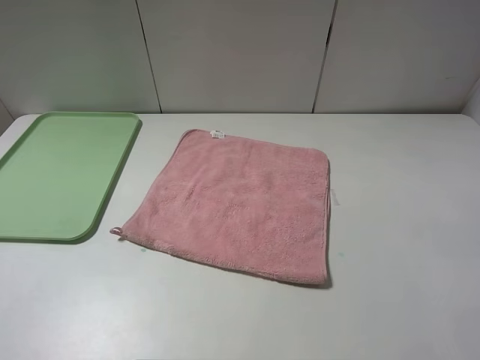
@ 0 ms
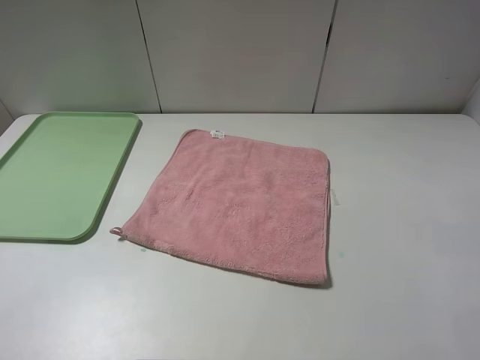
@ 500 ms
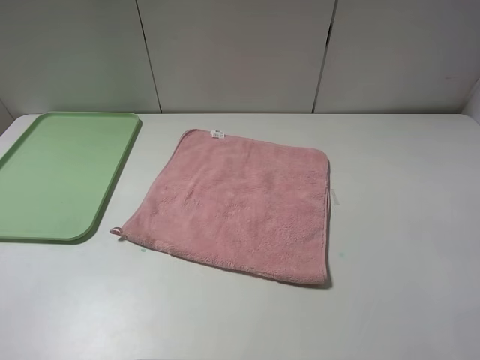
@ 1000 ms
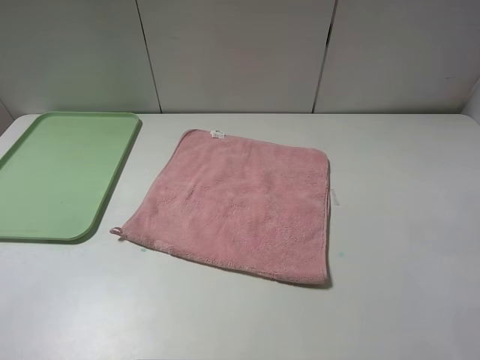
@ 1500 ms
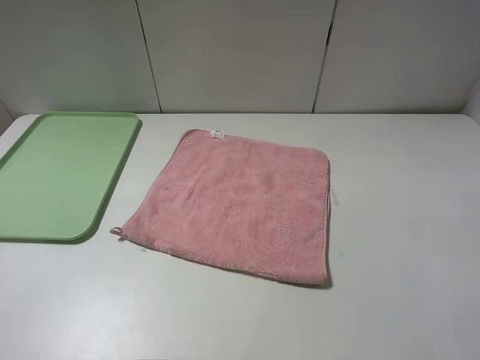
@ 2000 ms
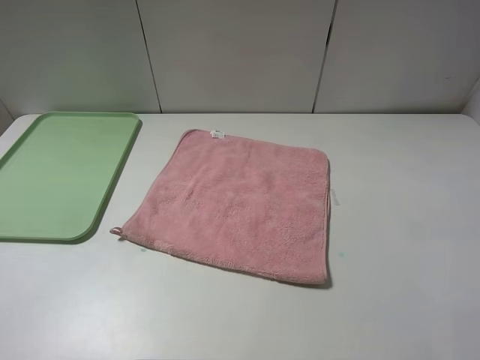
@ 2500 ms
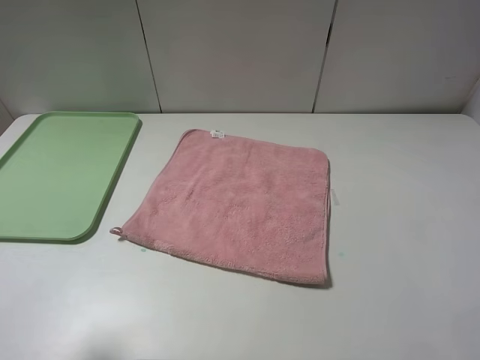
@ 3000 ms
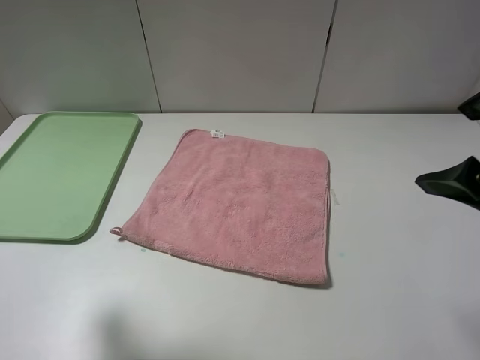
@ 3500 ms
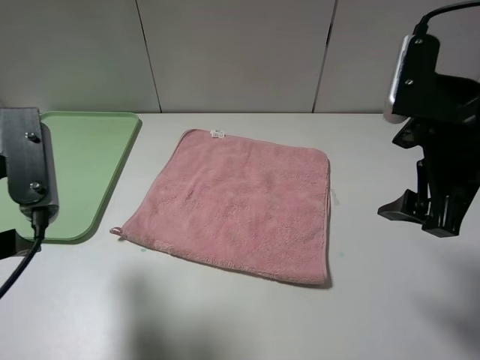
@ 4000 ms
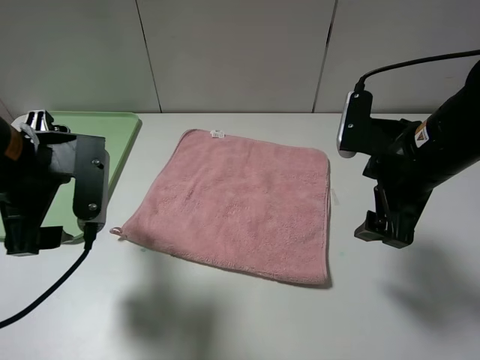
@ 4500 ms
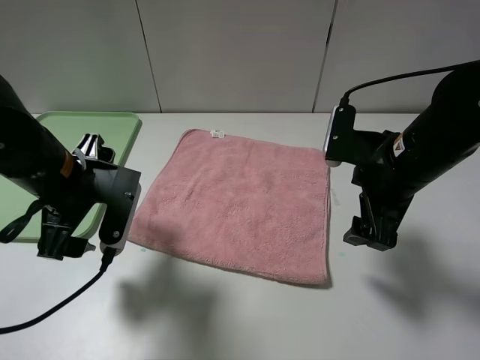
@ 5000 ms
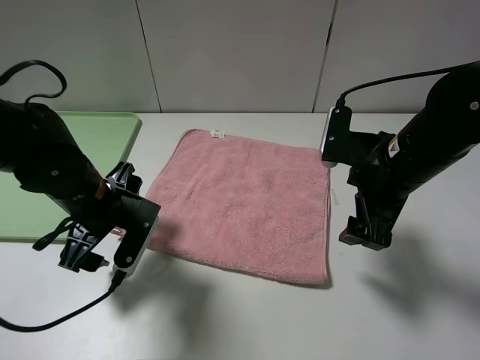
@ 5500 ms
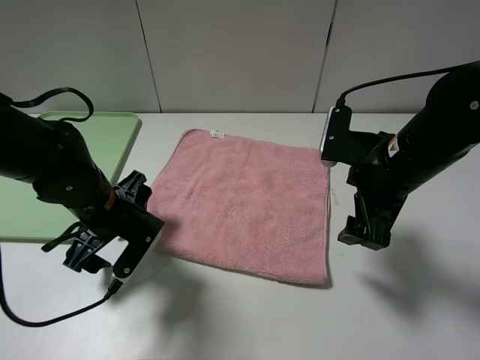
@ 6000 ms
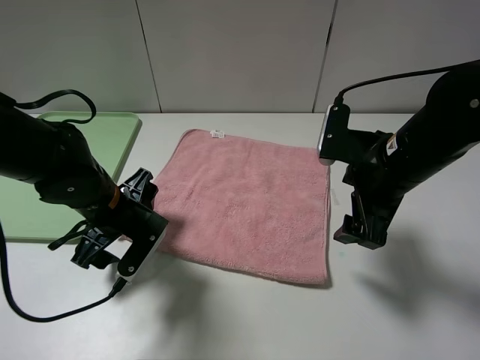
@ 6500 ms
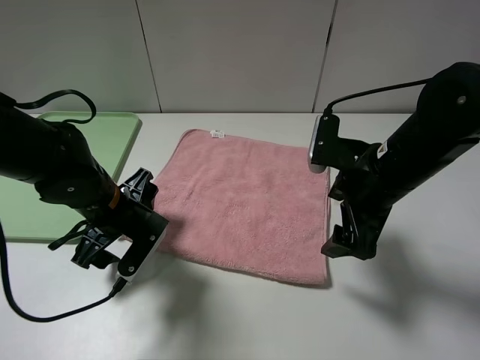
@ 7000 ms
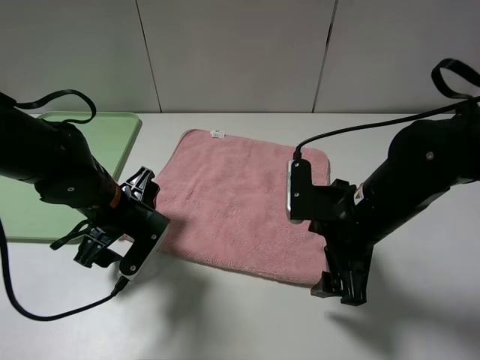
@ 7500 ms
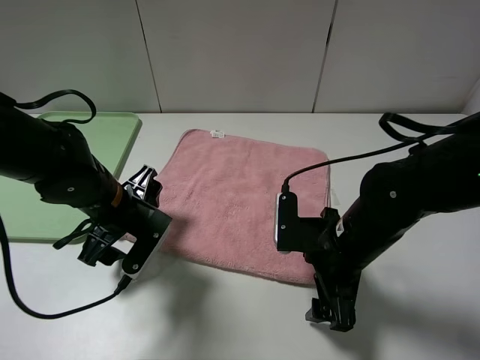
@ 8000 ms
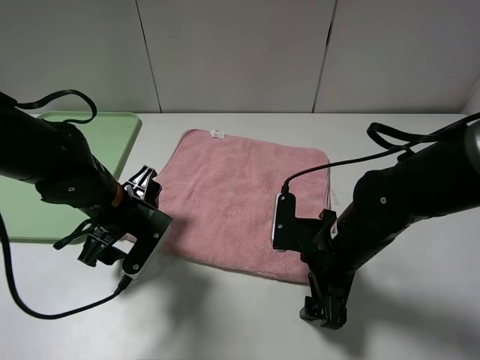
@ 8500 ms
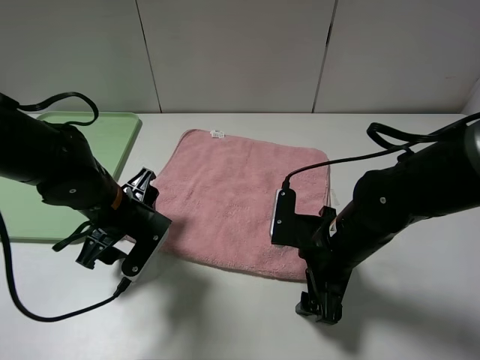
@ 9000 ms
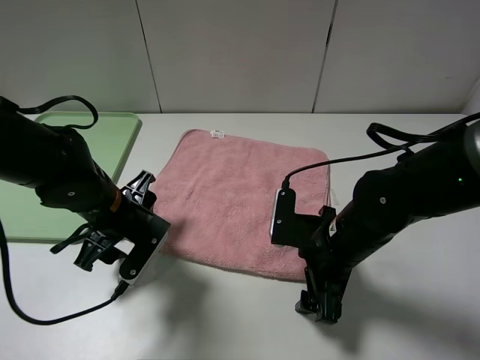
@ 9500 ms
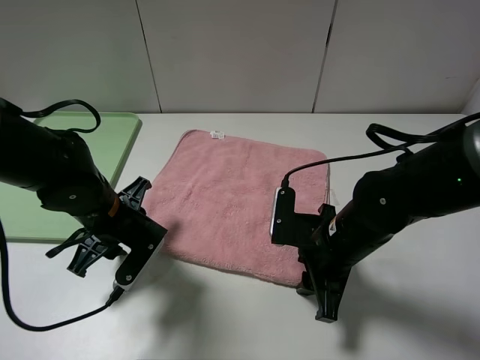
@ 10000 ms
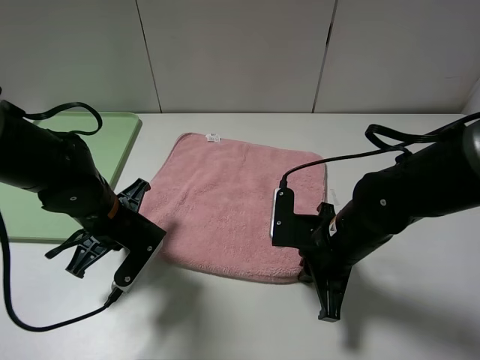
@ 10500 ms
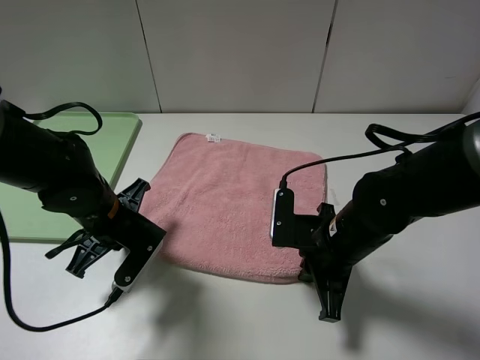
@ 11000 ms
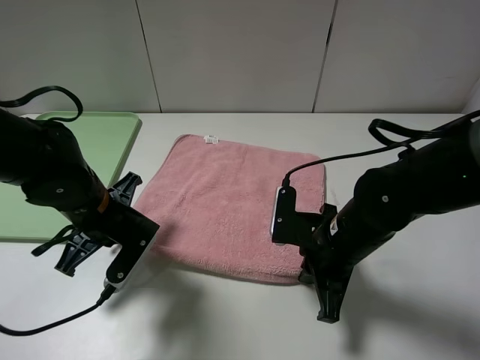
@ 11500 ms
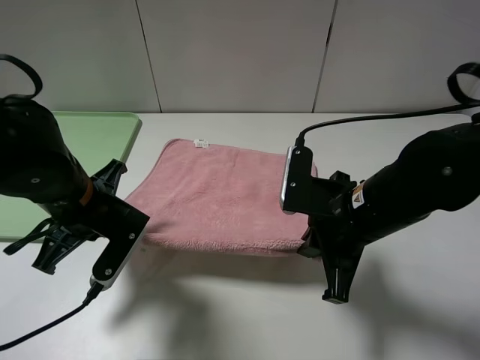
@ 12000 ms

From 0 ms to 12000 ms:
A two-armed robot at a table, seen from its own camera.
From 0 ms to 2000 ms: Both grippers stay put.
From 2000 ms to 4000 ms: The right gripper travels forward and to the left by some 20 cm. The left gripper moves forward and to the right, about 20 cm.
From 4000 ms to 6000 ms: The right gripper is displaced downward by about 10 cm; the left gripper moves downward and forward, approximately 20 cm.
From 6000 ms to 8000 ms: The right gripper is displaced downward by roughly 10 cm.
From 8000 ms to 10000 ms: The right gripper closes. Meanwhile the left gripper closes up.
From 10000 ms to 12000 ms: Both grippers travel together upward, roughly 5 cm. The right gripper closes up, while the left gripper closes up.

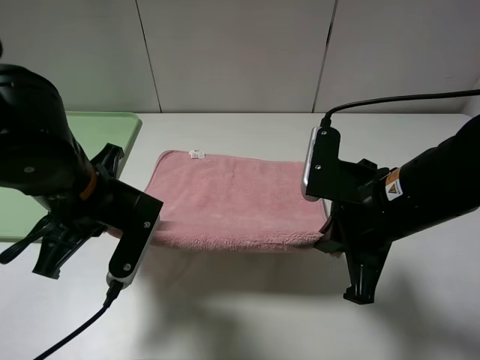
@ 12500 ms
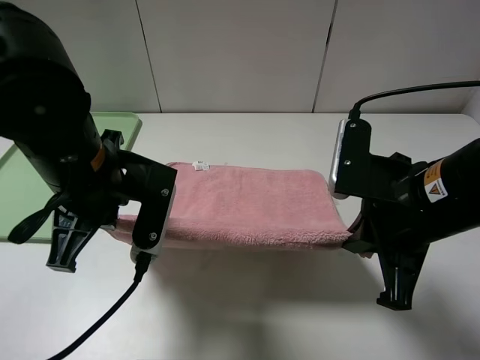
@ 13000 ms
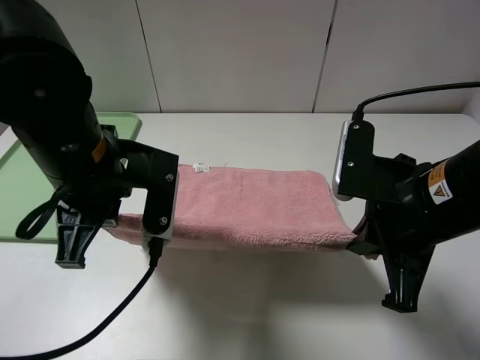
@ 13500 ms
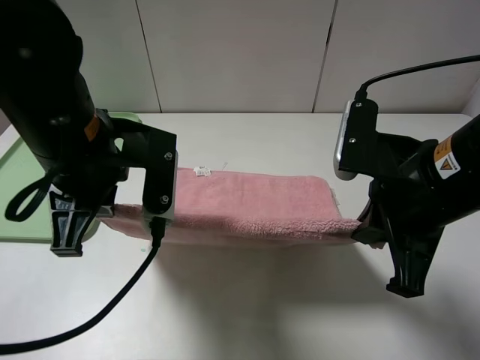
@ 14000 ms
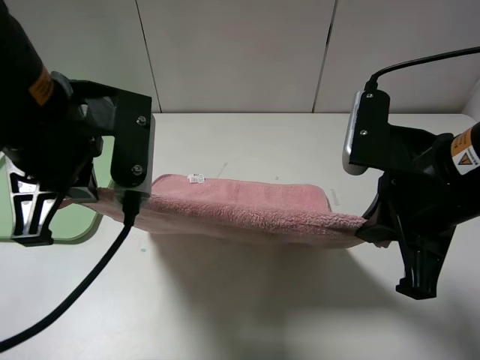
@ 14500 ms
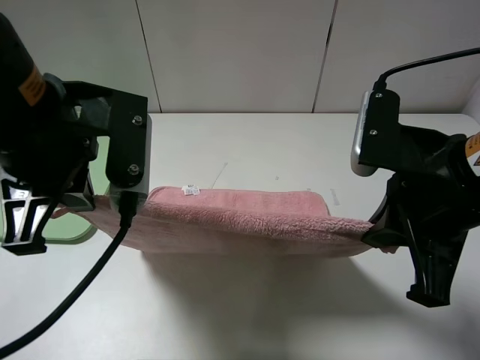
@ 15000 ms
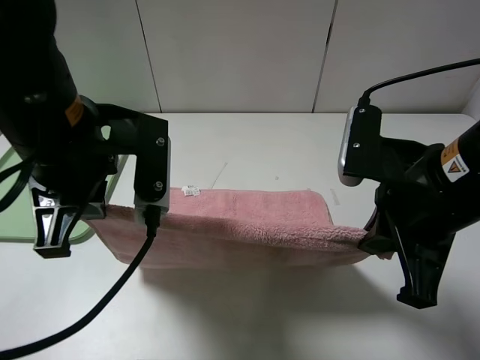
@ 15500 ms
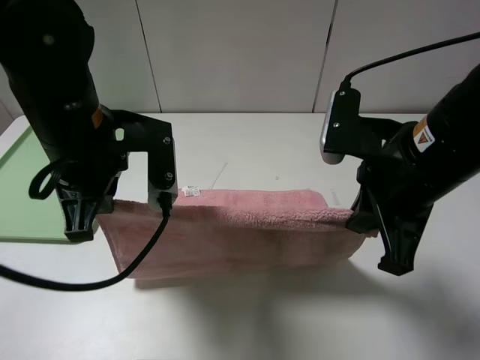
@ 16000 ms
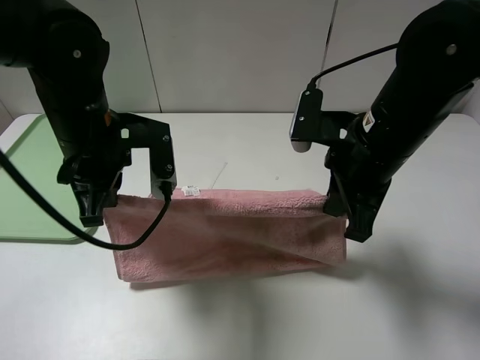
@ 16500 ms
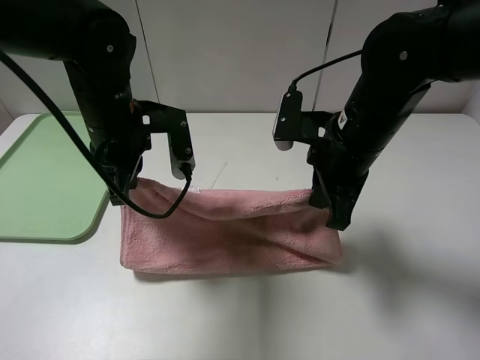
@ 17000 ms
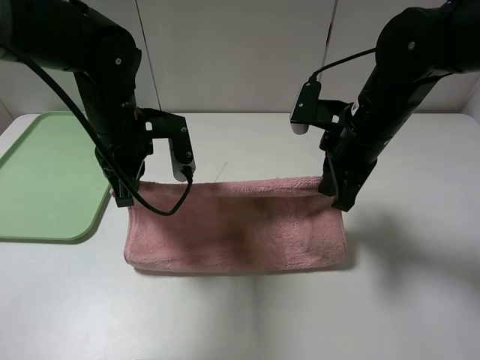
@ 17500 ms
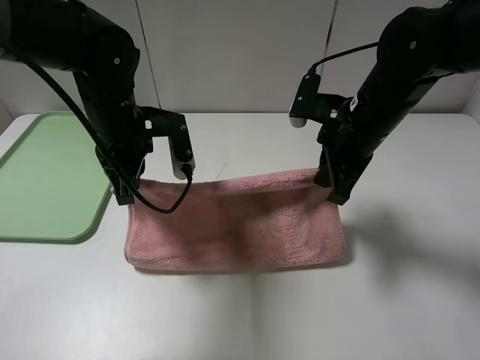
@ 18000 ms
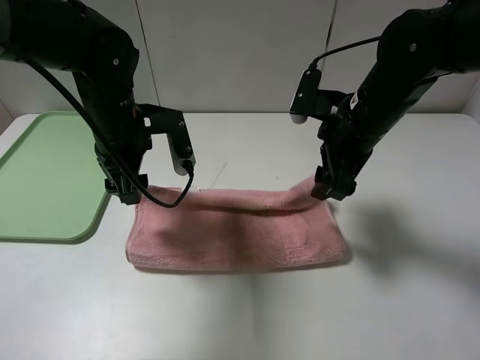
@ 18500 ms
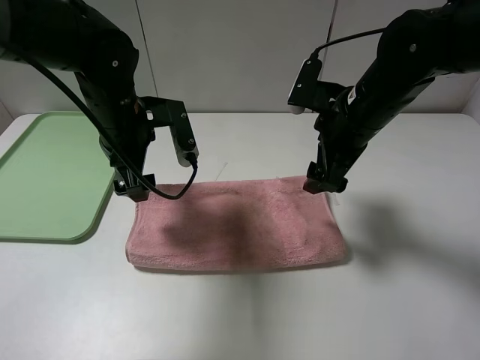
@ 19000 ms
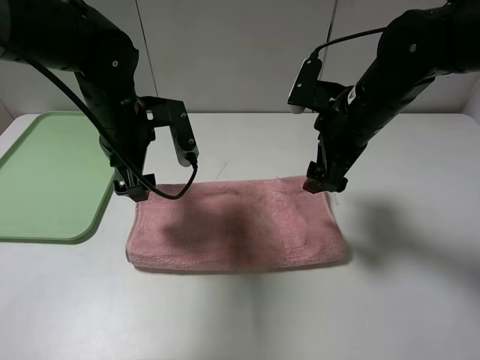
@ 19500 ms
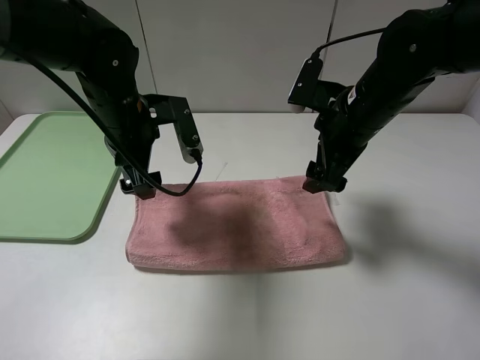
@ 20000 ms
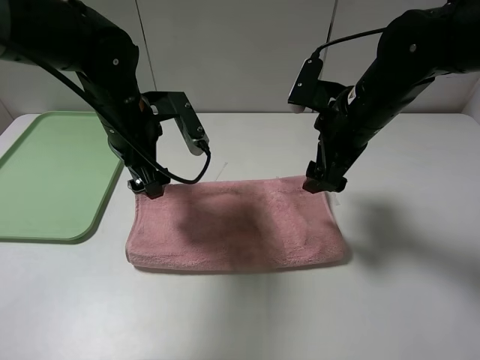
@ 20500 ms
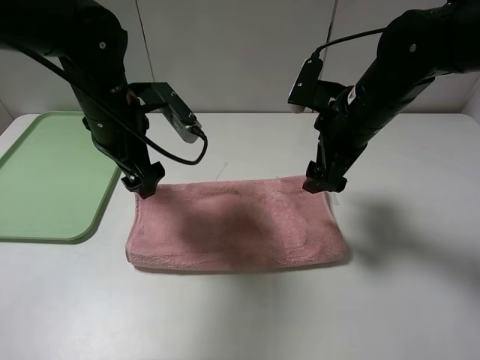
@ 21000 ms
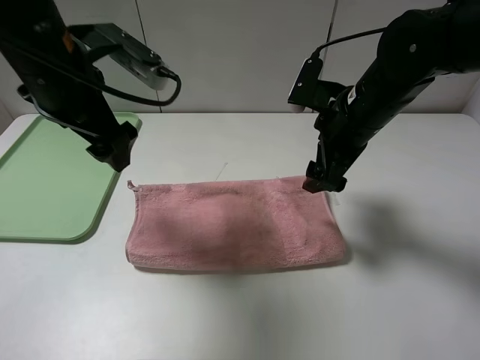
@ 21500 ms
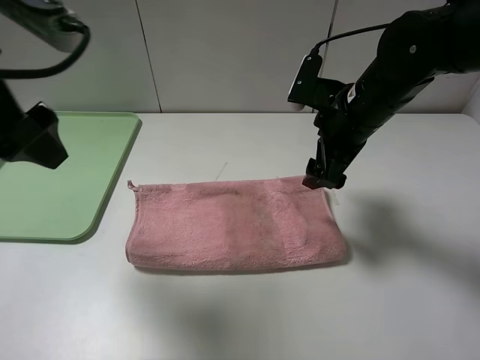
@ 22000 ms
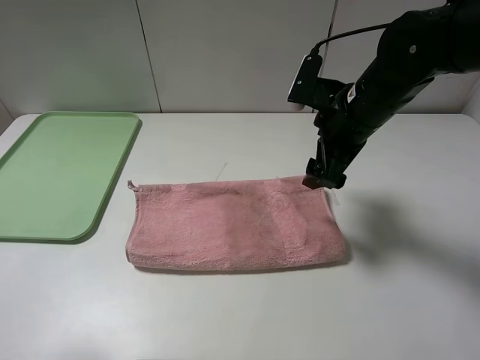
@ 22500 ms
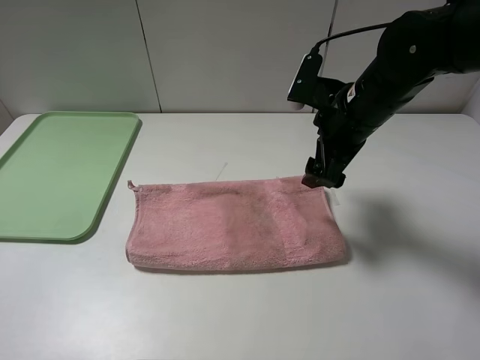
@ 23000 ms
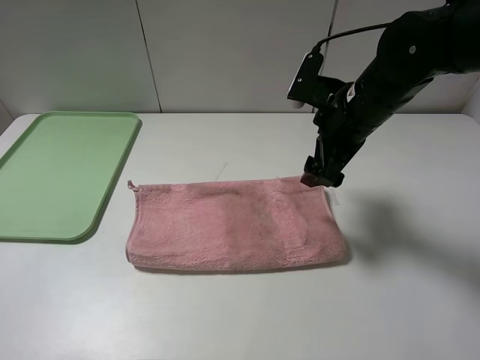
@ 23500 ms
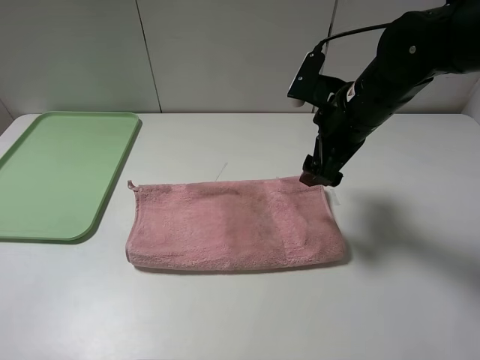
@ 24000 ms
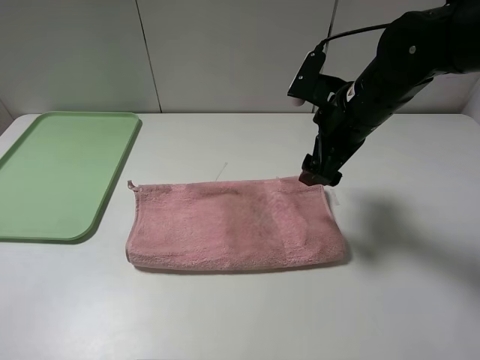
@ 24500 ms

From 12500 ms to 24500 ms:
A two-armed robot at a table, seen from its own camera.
Step, from 12500 ms to 18500 ms: Fold the pink towel upwards.
From 12500 ms to 14500 ms: The right gripper moves upward, approximately 5 cm. Meanwhile the left gripper travels upward by roughly 10 cm.
From 14500 ms to 16500 ms: The right gripper travels forward by roughly 10 cm. The left gripper shifts some 10 cm downward and forward.
From 16500 ms to 18500 ms: The grippers both shift forward by roughly 5 cm. The right gripper opens, while the left gripper opens.
From 18500 ms to 20500 ms: The grippers stay close to where they were, moving slightly.
From 20500 ms to 22500 ms: The left gripper is displaced backward, to the left and upward by roughly 35 cm.
From 22500 ms to 24500 ms: The left gripper heads backward and downward, covering approximately 10 cm.

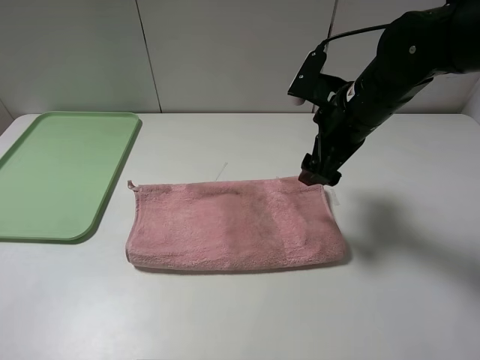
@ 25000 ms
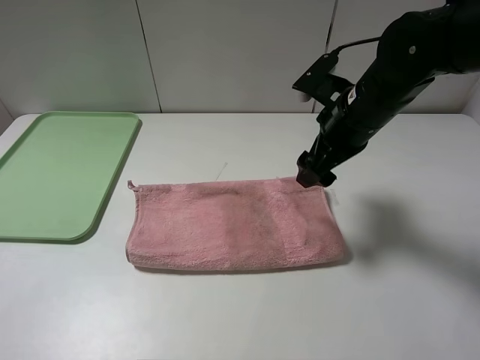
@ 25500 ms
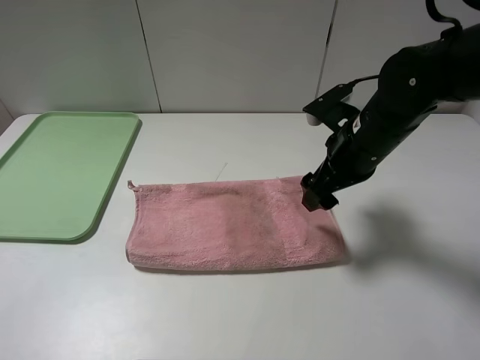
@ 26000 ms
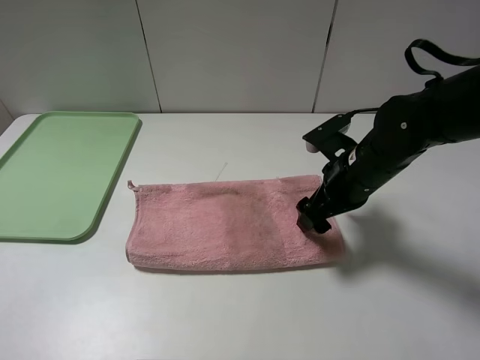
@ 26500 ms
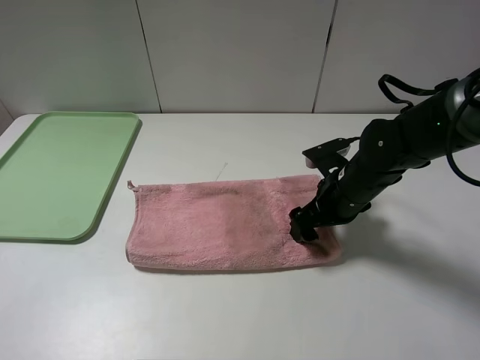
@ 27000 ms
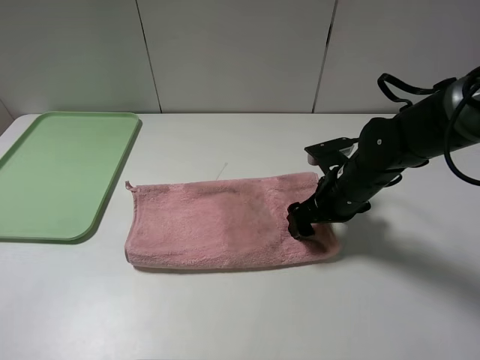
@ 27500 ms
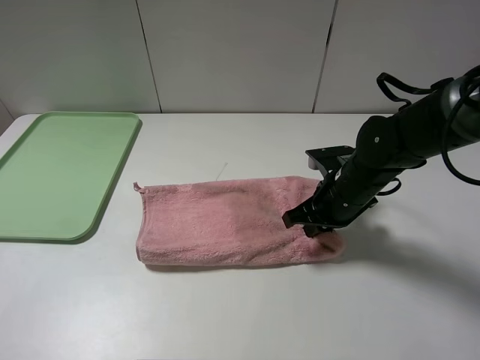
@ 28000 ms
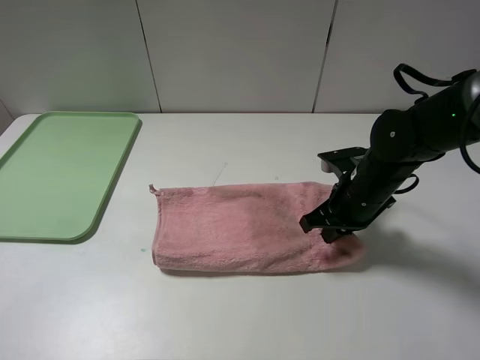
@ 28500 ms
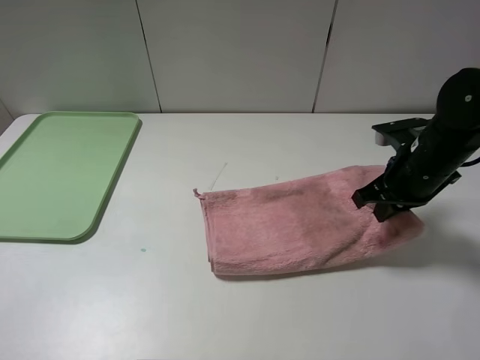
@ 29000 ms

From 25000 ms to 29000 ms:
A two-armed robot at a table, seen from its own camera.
From 25000 ms to 27000 ms: The right gripper travels downward by about 10 cm.
From 27000 ms to 29000 ms: The right gripper moves to the right and upward, some 10 cm, and closes.
